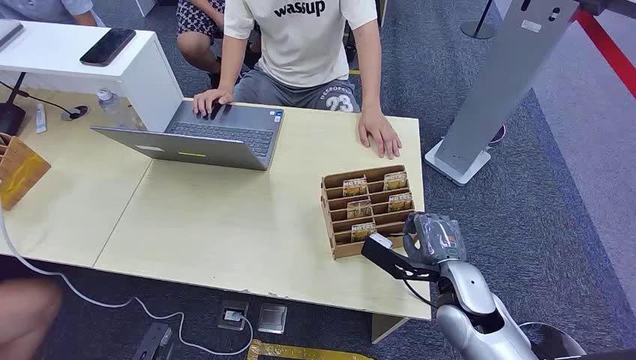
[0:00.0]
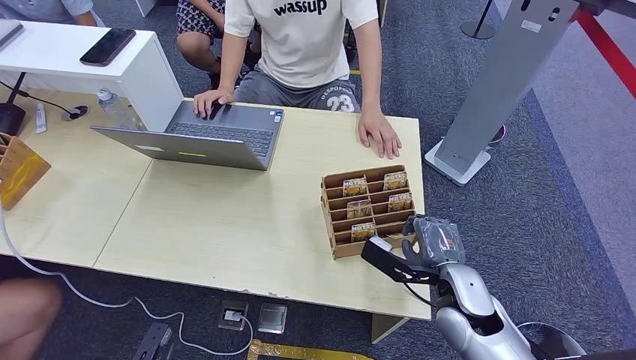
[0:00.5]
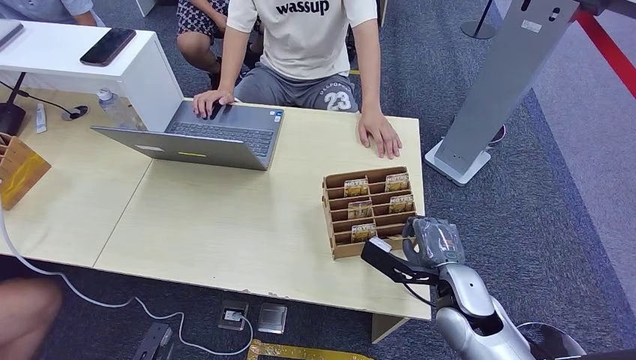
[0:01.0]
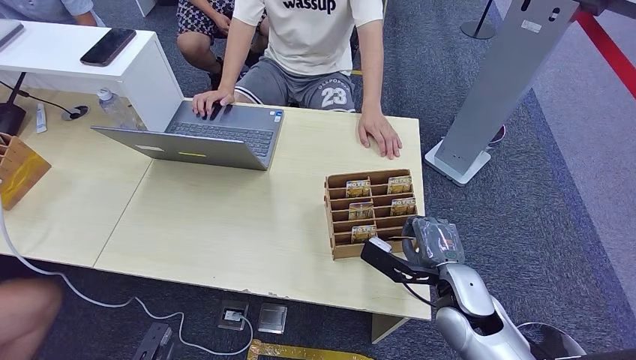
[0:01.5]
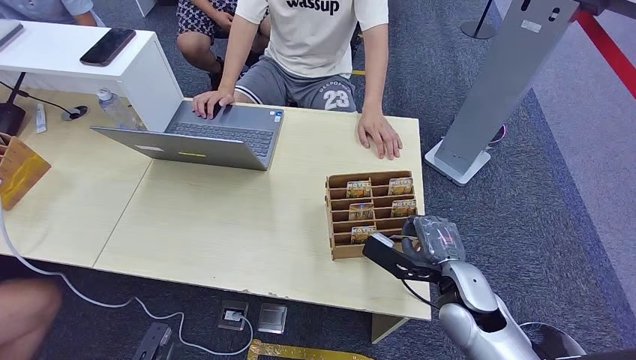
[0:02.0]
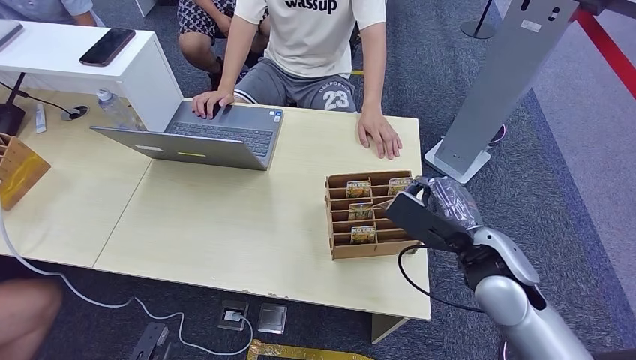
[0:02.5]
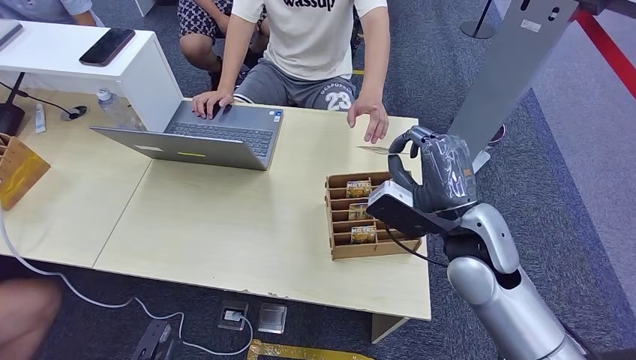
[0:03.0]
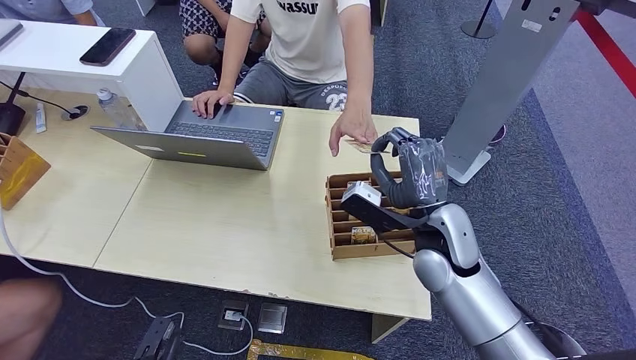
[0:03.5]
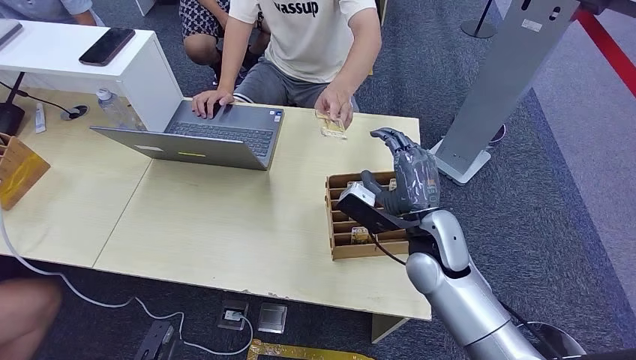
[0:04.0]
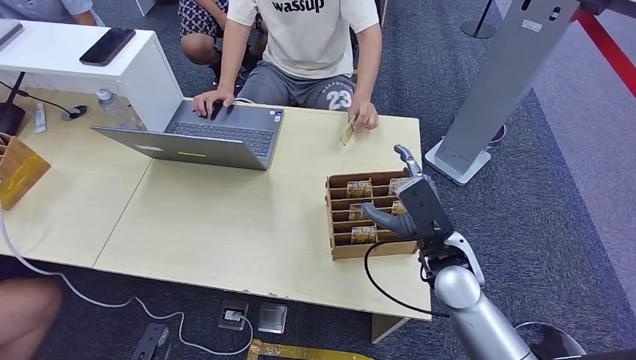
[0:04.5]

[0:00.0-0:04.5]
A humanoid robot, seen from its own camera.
Step, 0:00.0 to 0:02.5: Pick up the room card from the card holder.
Step, 0:03.0 to 0:04.5: Hand the room card to the target.
